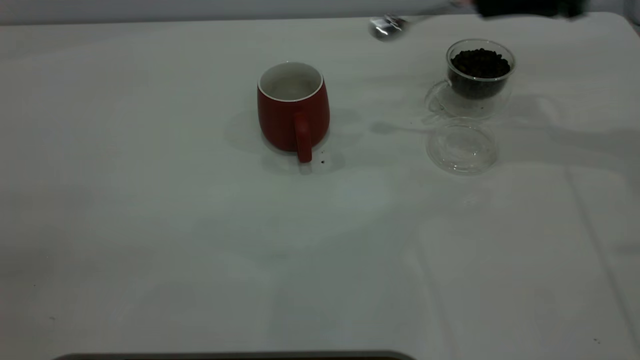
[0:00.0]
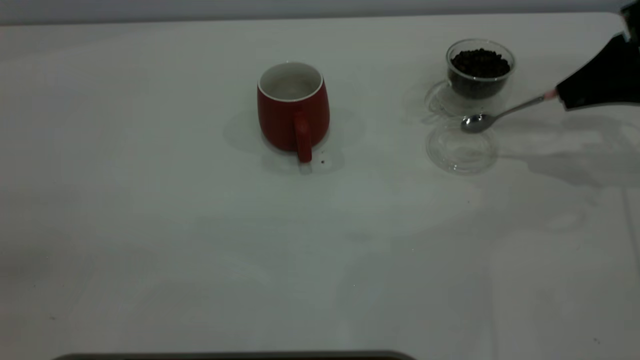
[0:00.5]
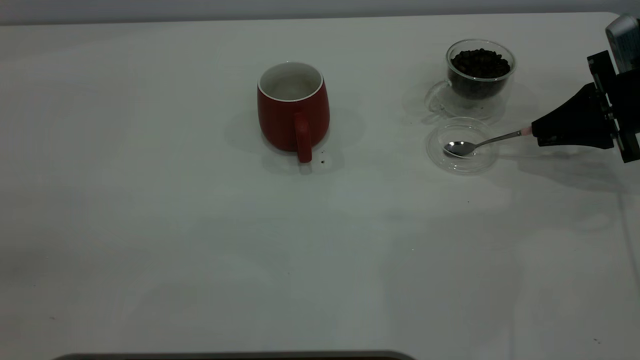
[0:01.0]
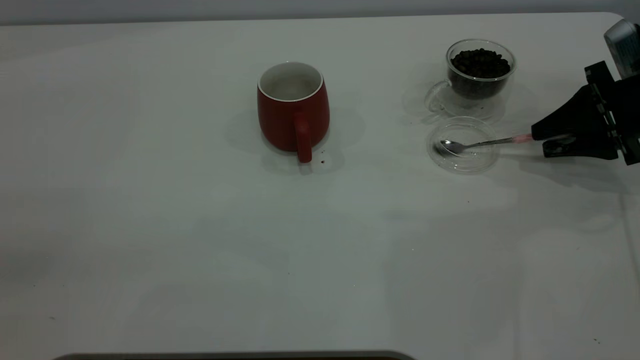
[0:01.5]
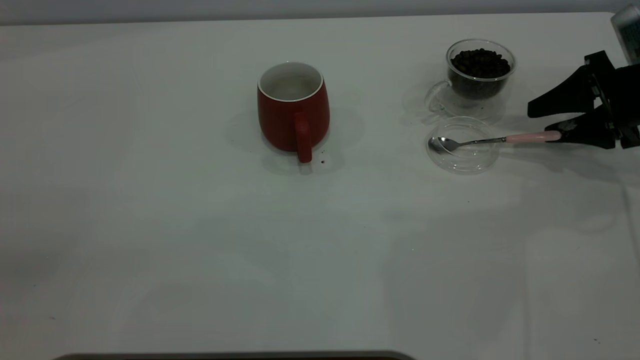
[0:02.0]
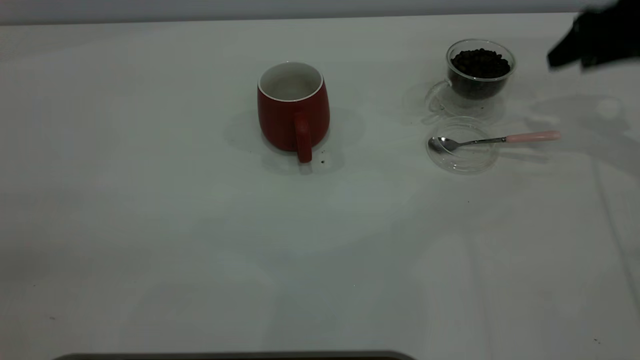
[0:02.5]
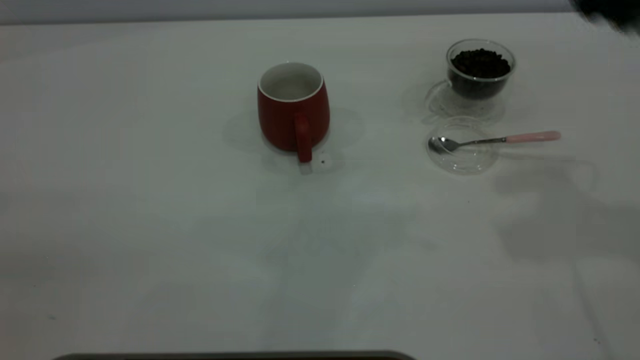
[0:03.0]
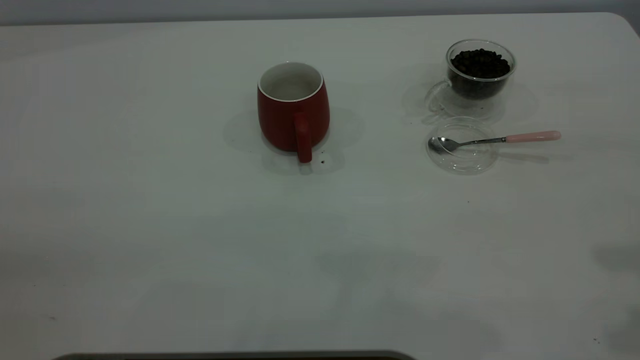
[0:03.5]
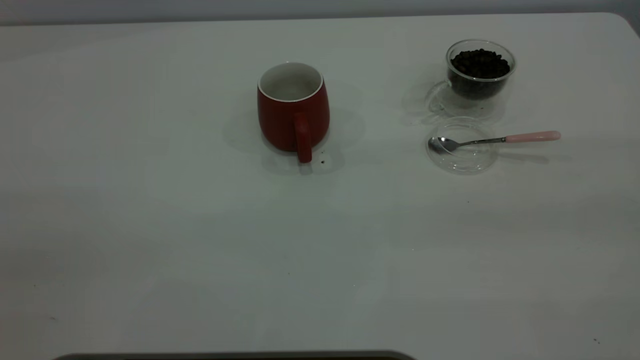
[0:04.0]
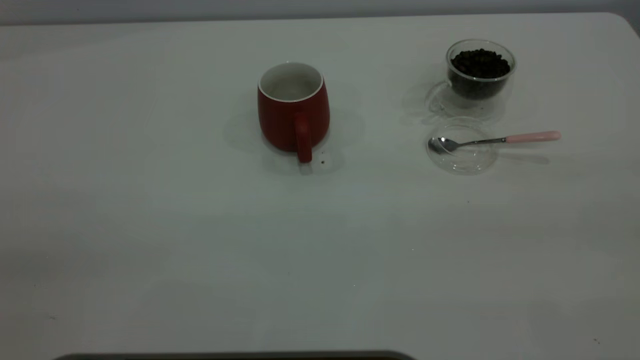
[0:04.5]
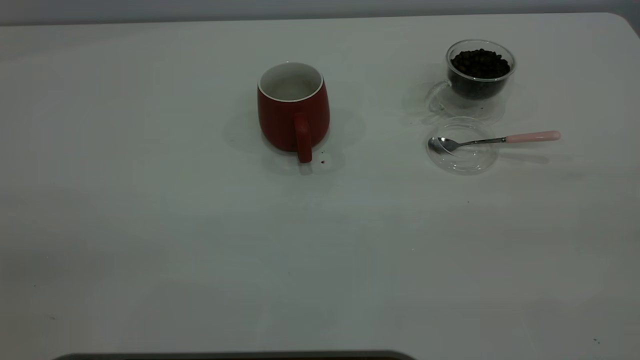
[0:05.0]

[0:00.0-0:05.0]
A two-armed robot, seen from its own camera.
Task of the whole recording: the left gripper place the red cup in the center of the table, the right gripper take the pink spoon from the cup lid and scoop out the coffee beans from the coffee cup and put them into the red cup, the right gripper put the spoon back into the cup lid.
Step, 0:00.0 to 0:02.0: Place the spoon back in its original place.
0:00.0 to 0:02.5: The right gripper reaches roughly 15 cm downward, then returns, and opens up.
0:02.5 to 0:05.0: The right gripper heads backward and upward, covering approximately 40 cm.

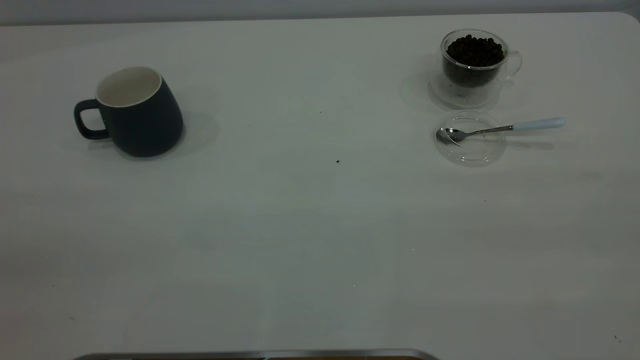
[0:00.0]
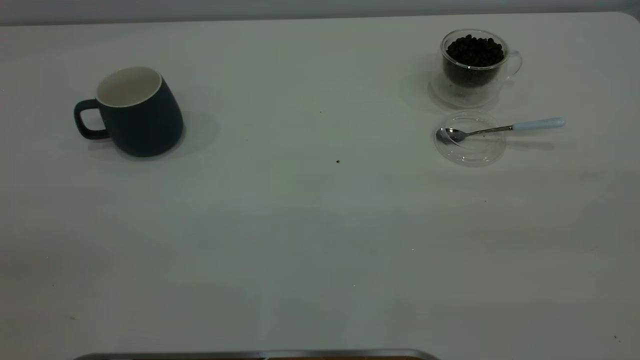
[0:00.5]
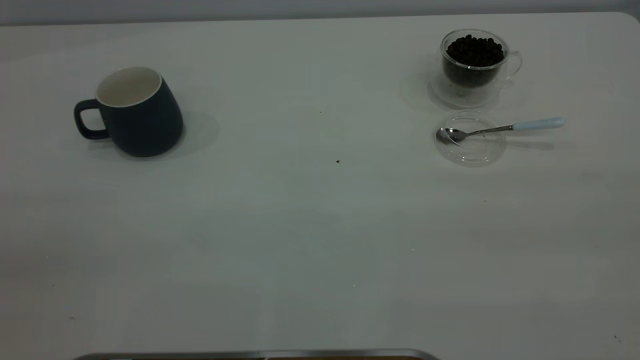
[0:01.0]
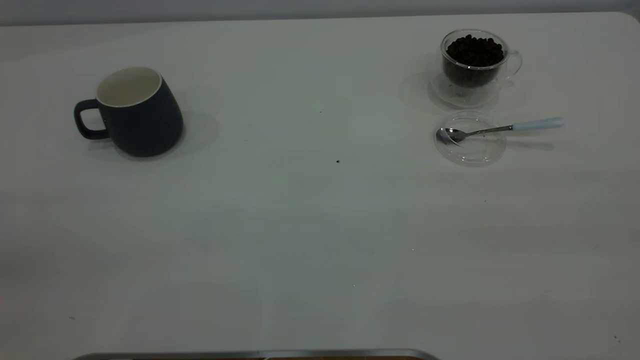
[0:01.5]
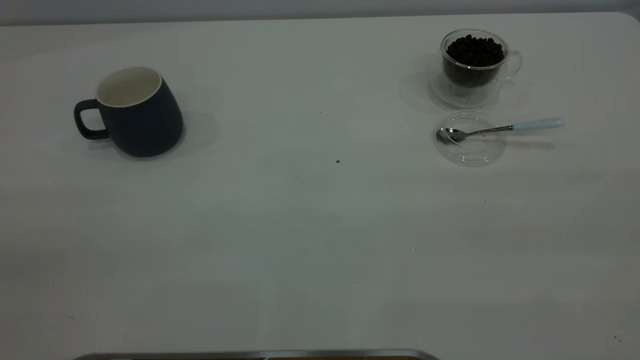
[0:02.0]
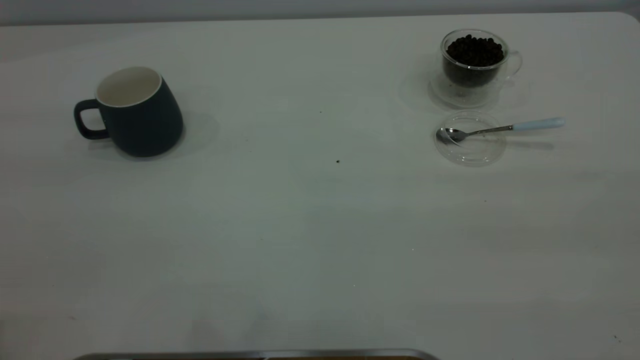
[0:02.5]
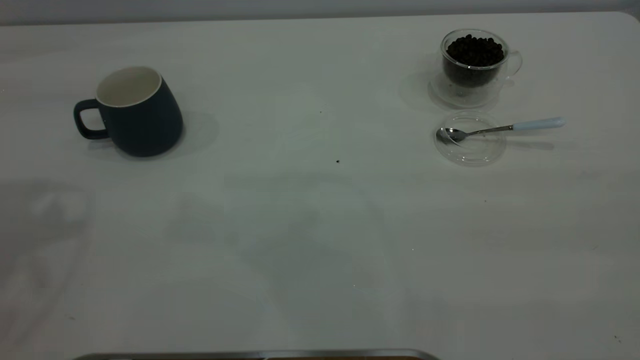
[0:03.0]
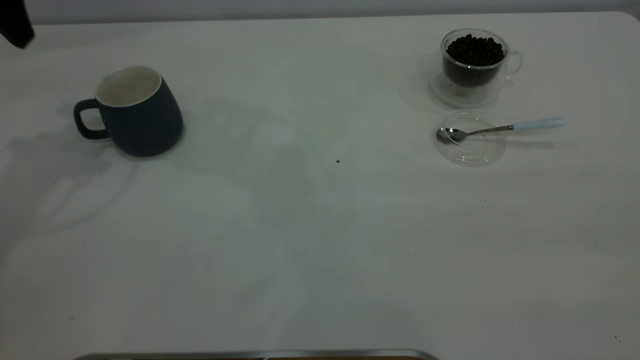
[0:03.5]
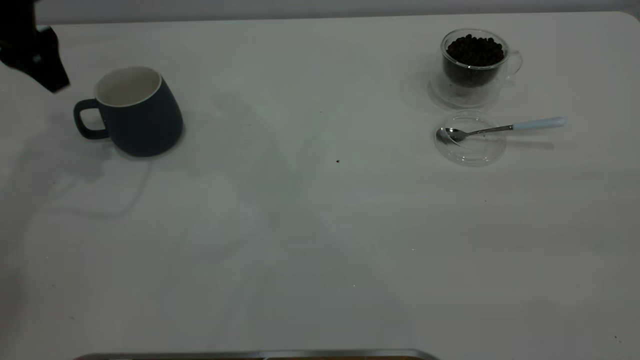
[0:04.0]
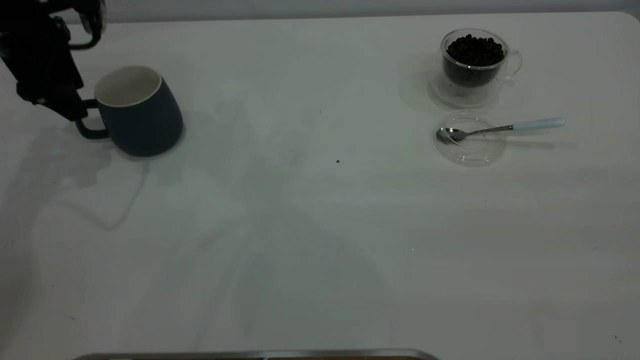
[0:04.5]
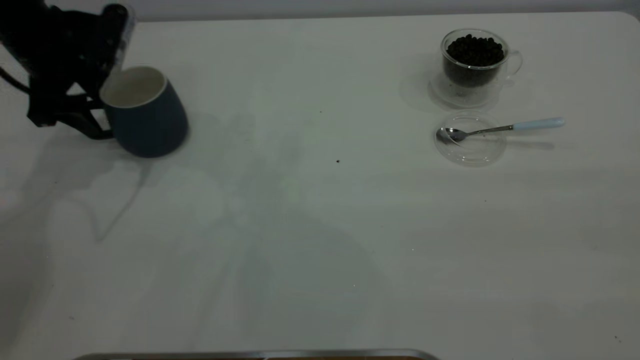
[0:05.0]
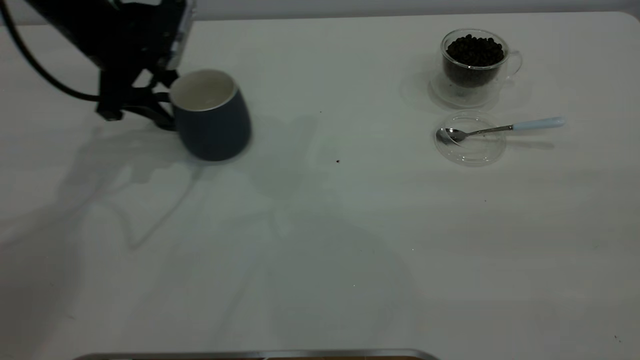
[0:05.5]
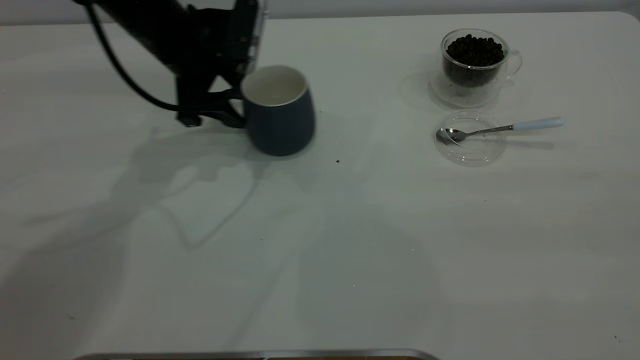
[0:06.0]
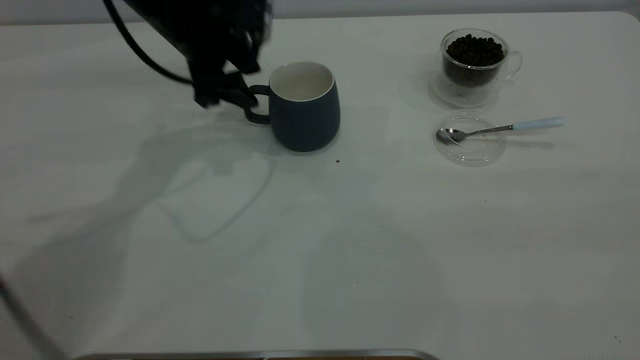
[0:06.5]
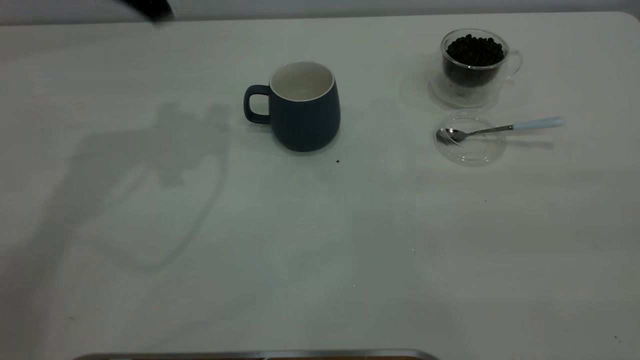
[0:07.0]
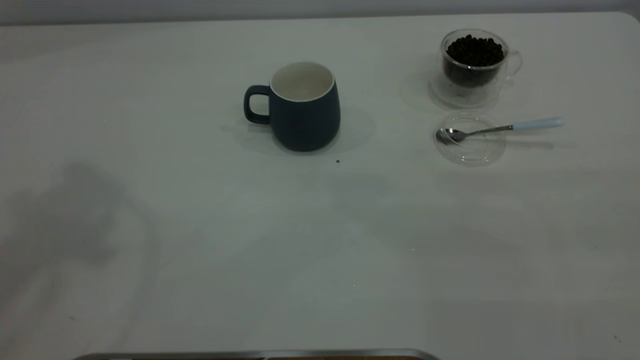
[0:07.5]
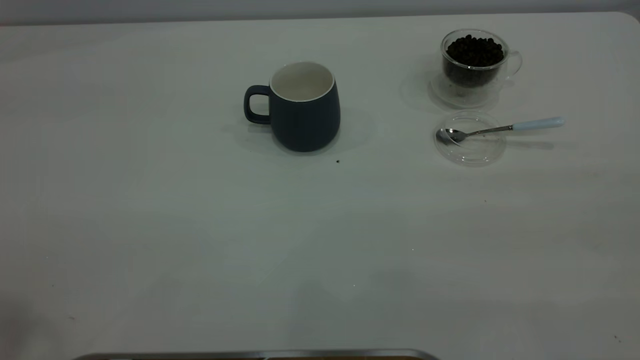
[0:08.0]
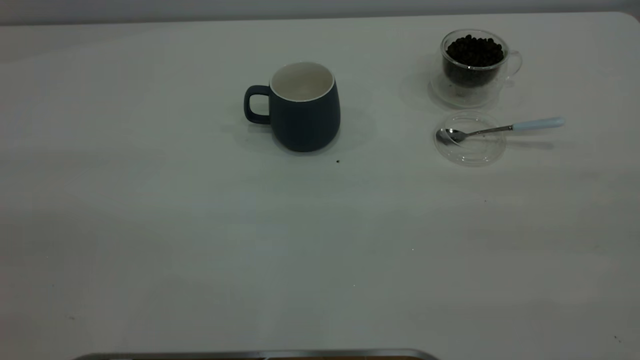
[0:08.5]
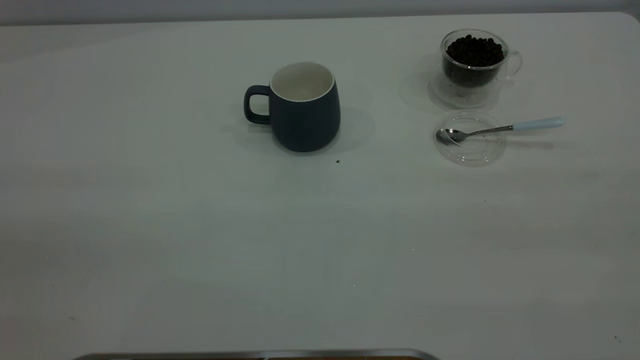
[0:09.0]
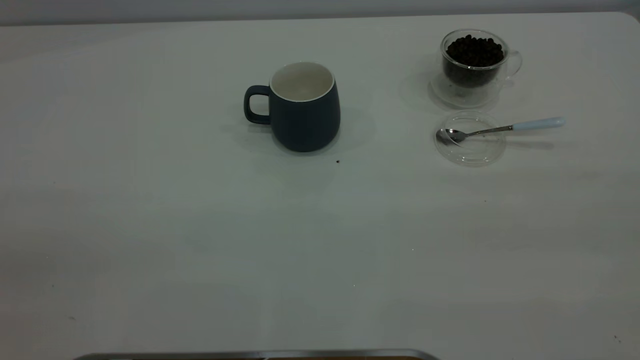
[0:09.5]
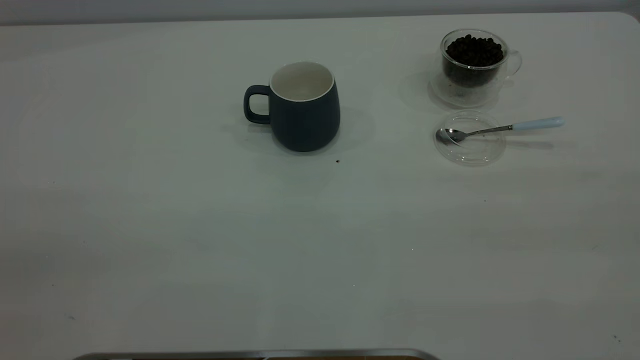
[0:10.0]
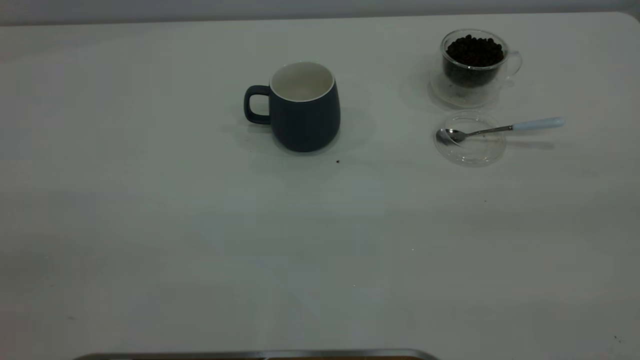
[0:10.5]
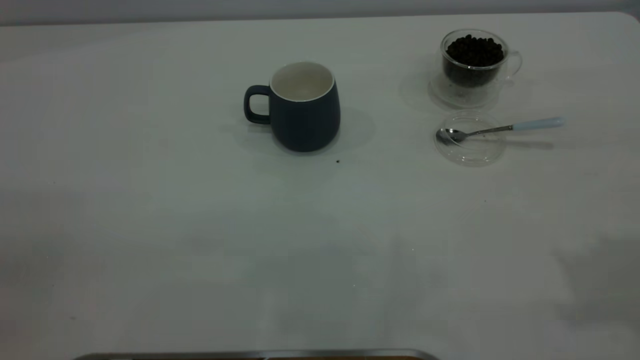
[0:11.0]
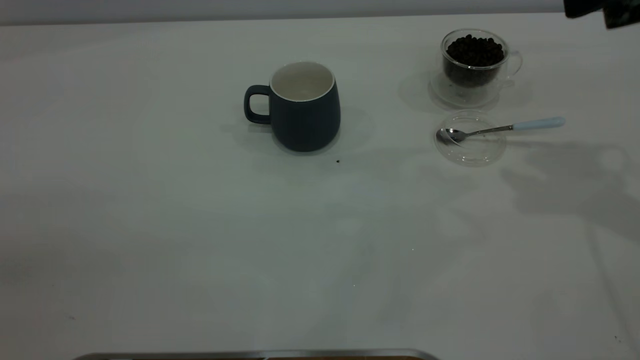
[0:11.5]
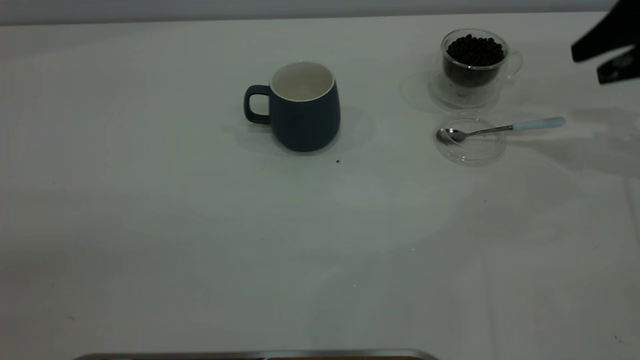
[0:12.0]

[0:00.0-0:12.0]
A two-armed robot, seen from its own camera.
Task of the whole recording: the left gripper place the grey cup in the center of the table, the right gripper take the blue spoon from the cup lid and scoop out the coffee beans from the coffee cup and put them into the grey cup, the right gripper put the spoon back into the cup lid.
Step, 0:00.0 to 0:06.5: Move the cup to the center of view.
0:00.0 to 0:02.0: Both grippers stay about where they are.
0:02.0 to 0:04.0: The left gripper travels forward by some 40 cm.
0:04.0 to 0:06.0: The left gripper shifts roughly 20 cm to the right and downward.
0:06.0 to 0:08.0: The left gripper travels upward and backward by some 50 cm.
0:10.0 to 0:12.0: The right gripper moves forward and downward, approximately 40 cm.

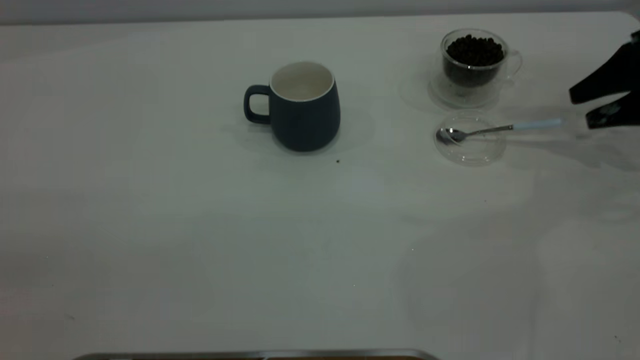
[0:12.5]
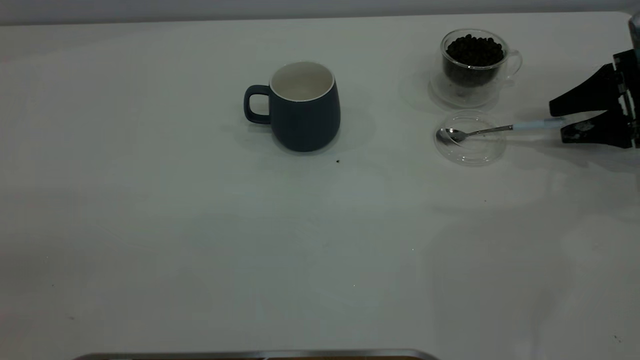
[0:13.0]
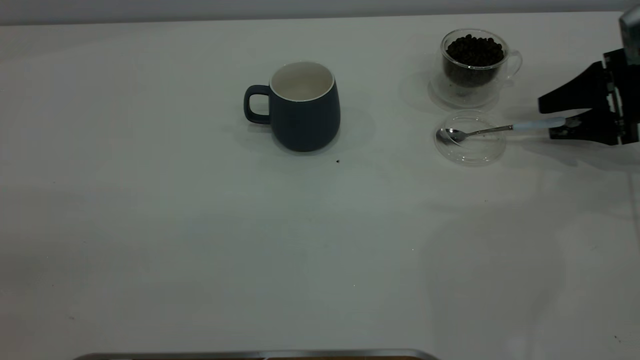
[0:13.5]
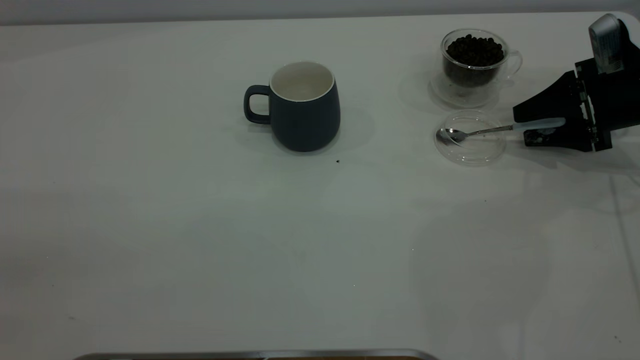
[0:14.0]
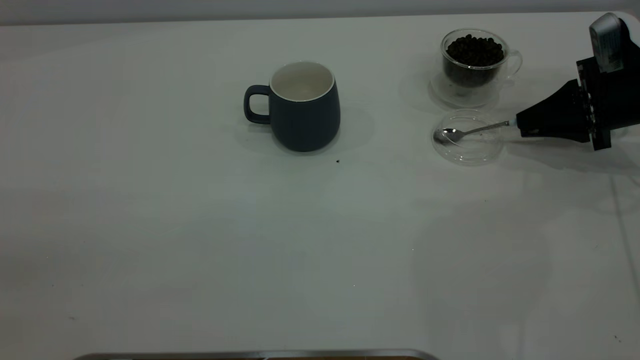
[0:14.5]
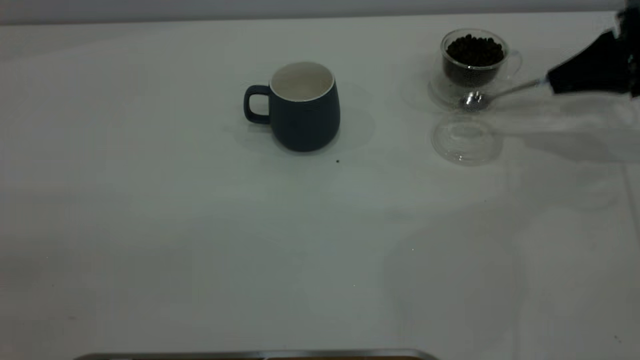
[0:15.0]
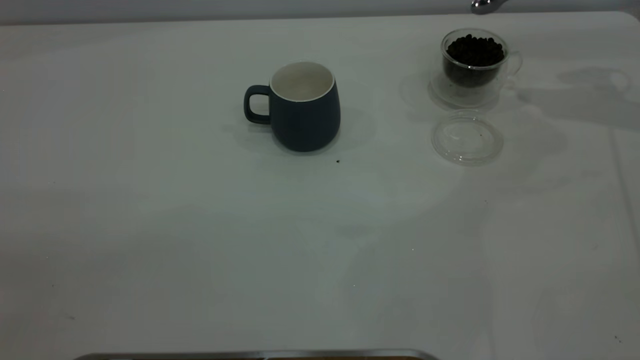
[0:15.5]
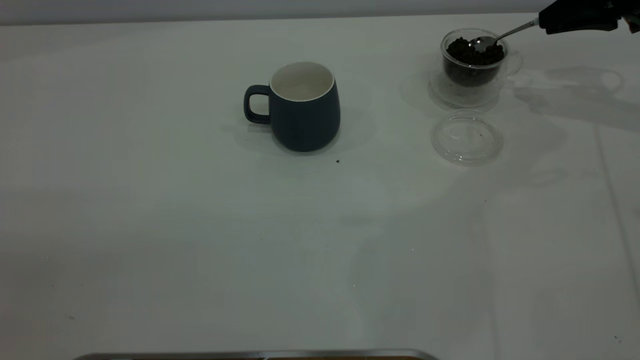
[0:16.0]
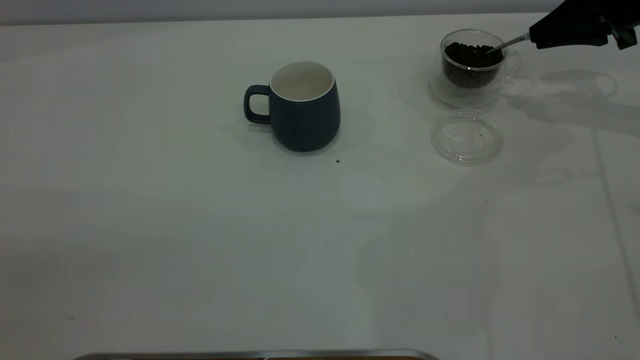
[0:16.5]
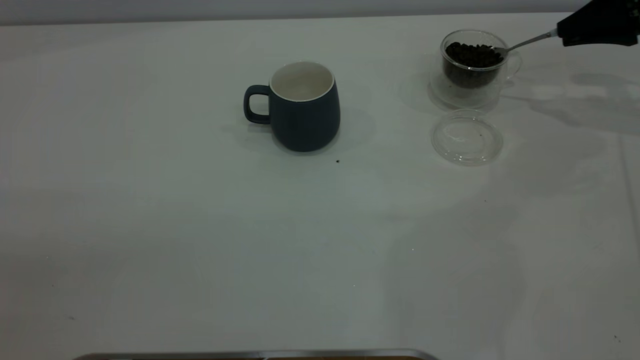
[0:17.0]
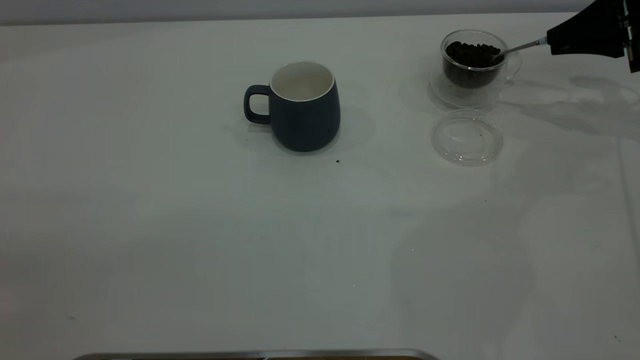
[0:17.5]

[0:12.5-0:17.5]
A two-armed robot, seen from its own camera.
Task of the whole recording: the left gripper place the grey cup in the center of the table, the right gripper take the blue spoon from the cup lid and scoop out the coffee beans from the coffee cup and put them into the grey cup, the right gripper put the spoon back into the cup lid.
Step, 0:12.5 to 0:15.0: Pick up the spoon.
0:12.5 to 0:15.0: The right gripper closes its fingers.
